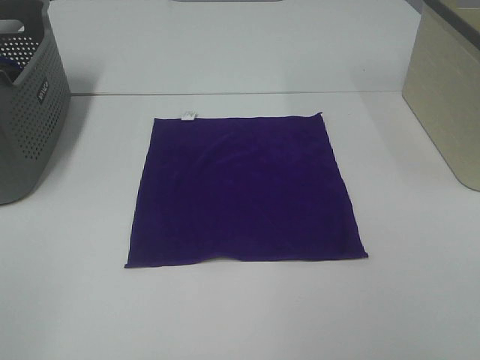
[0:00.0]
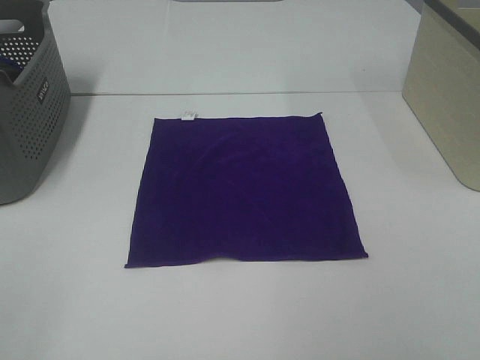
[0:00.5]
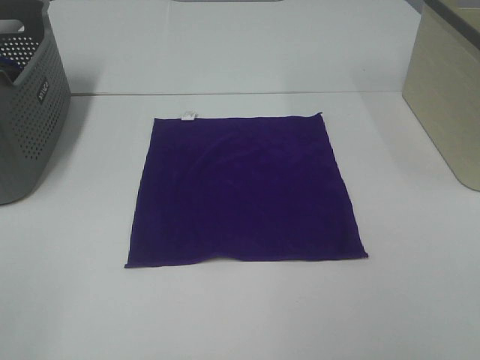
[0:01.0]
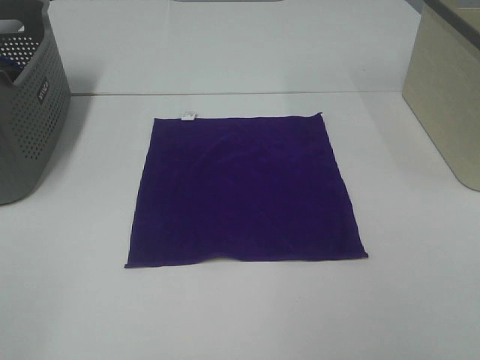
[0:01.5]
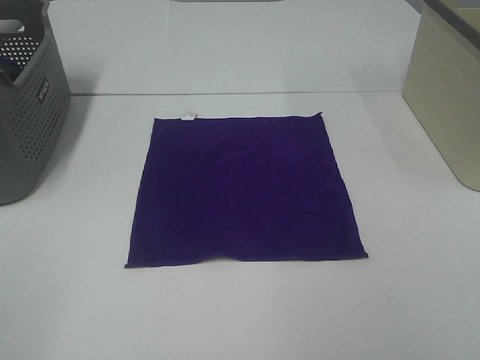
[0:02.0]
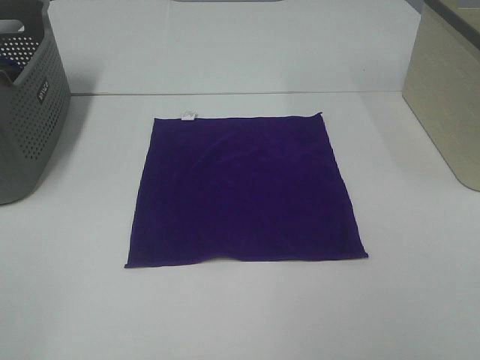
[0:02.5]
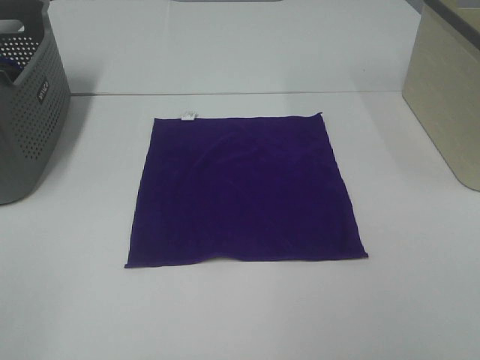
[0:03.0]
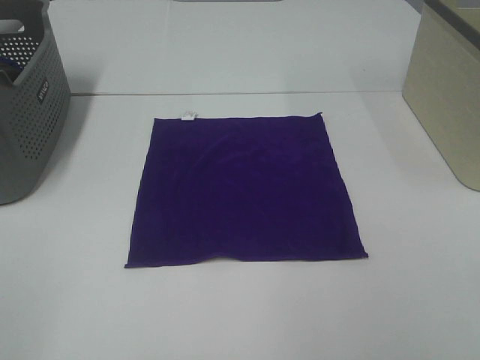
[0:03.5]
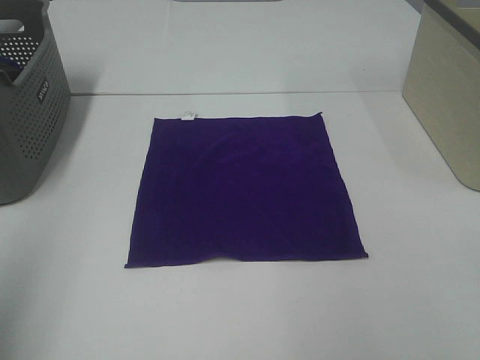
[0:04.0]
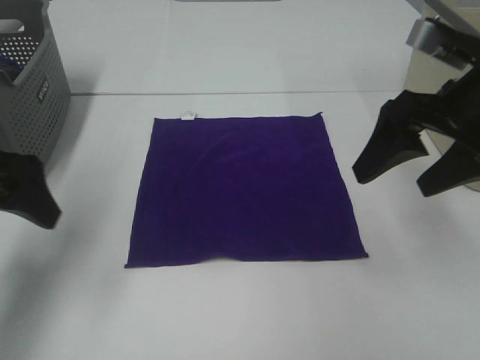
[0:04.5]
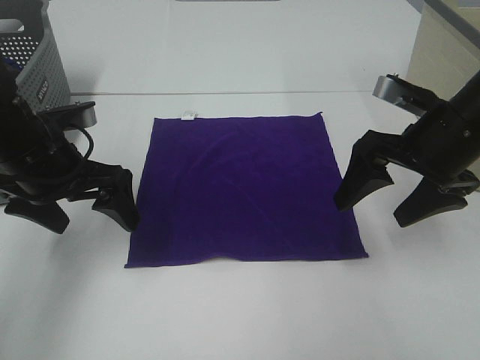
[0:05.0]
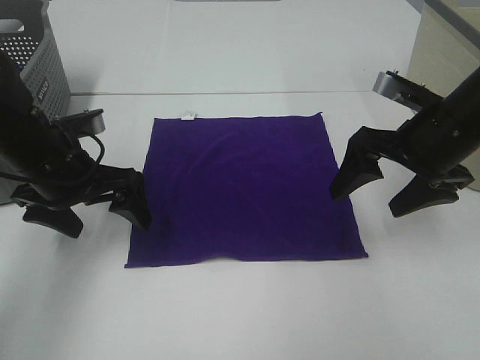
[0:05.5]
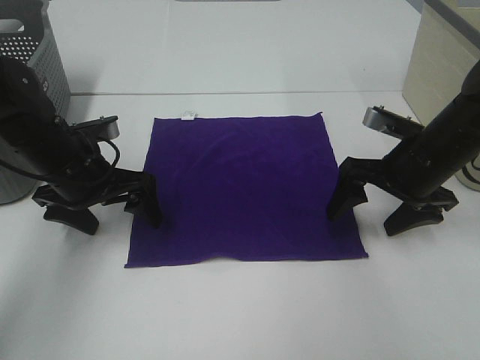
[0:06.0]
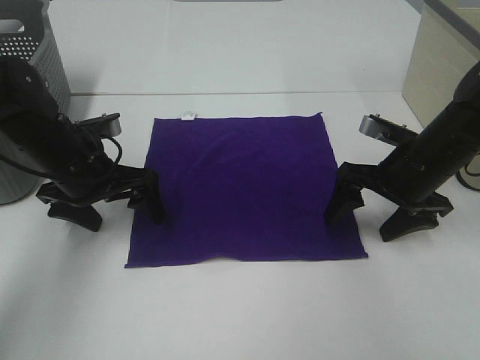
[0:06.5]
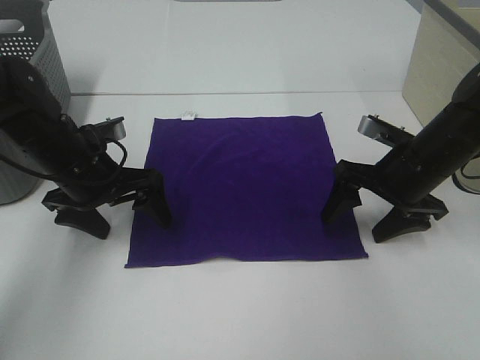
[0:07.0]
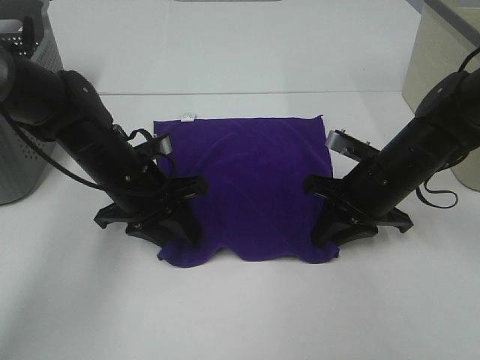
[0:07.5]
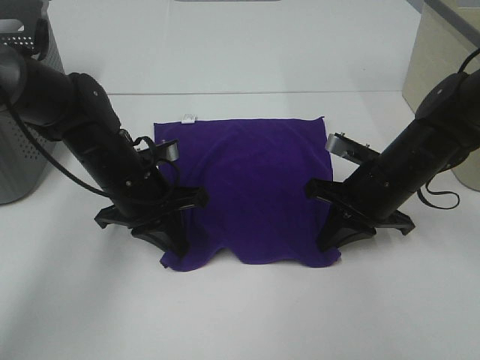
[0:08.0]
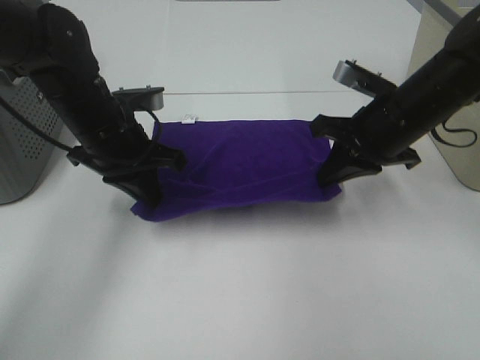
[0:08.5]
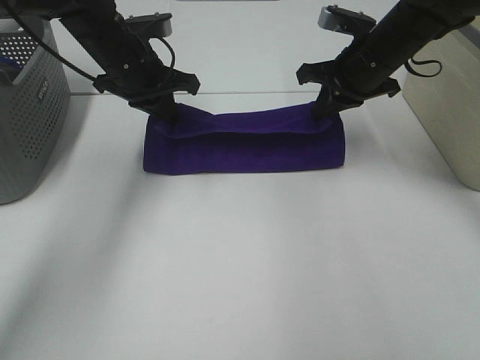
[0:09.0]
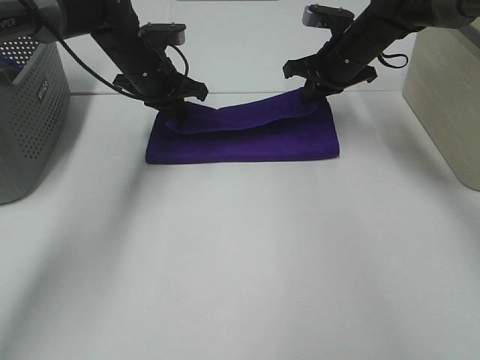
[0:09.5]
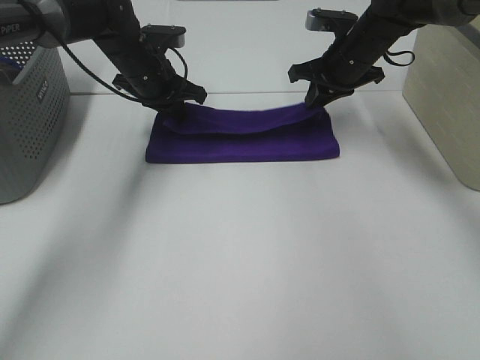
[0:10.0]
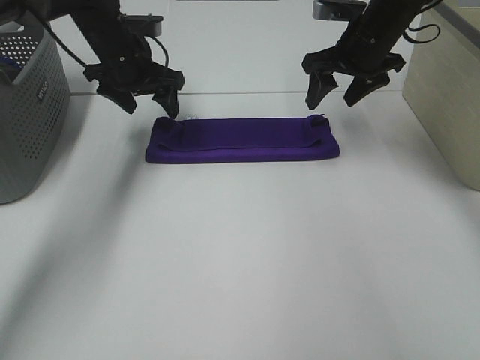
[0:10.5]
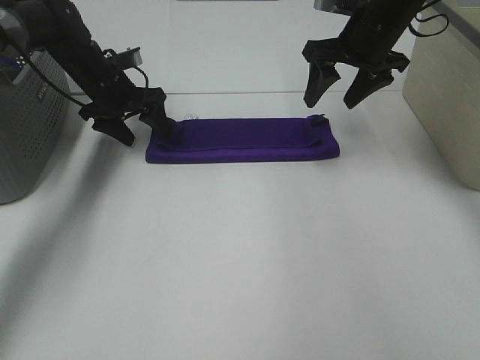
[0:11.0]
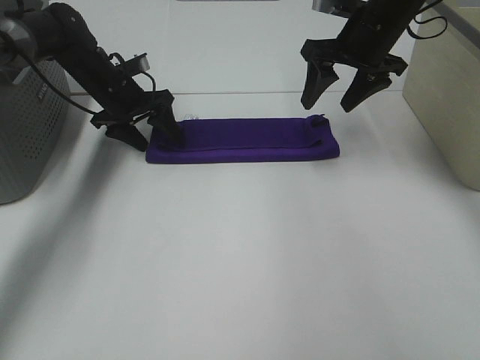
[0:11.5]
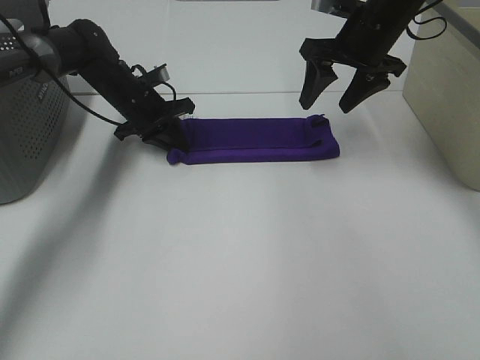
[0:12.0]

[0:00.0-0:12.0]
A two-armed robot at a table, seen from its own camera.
Task of the whole recording: Fold towels.
Step, 0:00.0 to 0:08.0: Left hand: grab the bottom left corner of purple towel.
Step, 0:00.0 to 0:08.0: Right hand: grab the bottom right corner of purple towel.
Step, 0:08.5 to 0:09.5: Left hand: fold the purple towel up.
Step, 0:08.5 to 0:09.5: Right hand: fold the purple towel up.
0:00.0 to 0:02.0: Both grippers stay about where they are.
0:02.0 to 0:04.0: The left gripper shifts some 10 cm forward.
0:04.0 to 0:06.0: The right gripper travels downward and forward by roughly 30 cm. The left gripper travels forward, downward and to the right by about 35 cm.
0:06.0 to 0:08.0: The right gripper closes. Meanwhile the left gripper shifts about 5 cm to the right, and closes up.
0:08.0 to 0:10.0: The right gripper is displaced forward and upward by about 20 cm. Meanwhile the left gripper shifts some 15 cm forward.
0:10.0 to 0:12.0: The right gripper goes about 5 cm upward, and opens its fingers. The left gripper moves downward, some 5 cm, and opens, then closes once more.

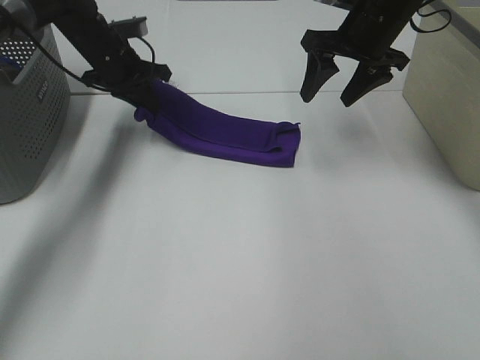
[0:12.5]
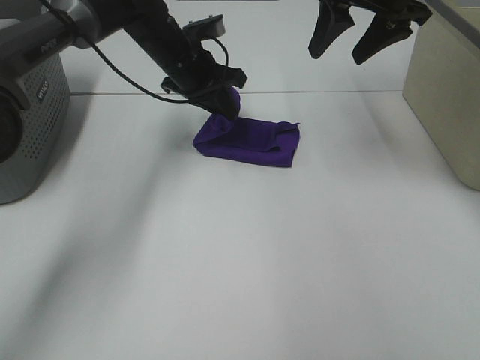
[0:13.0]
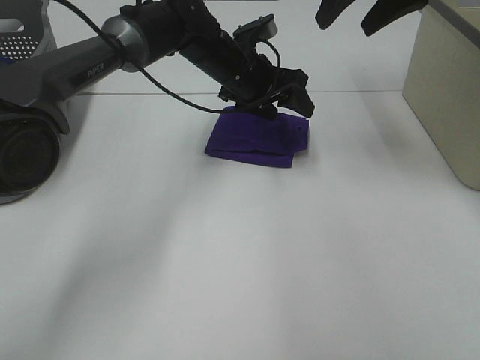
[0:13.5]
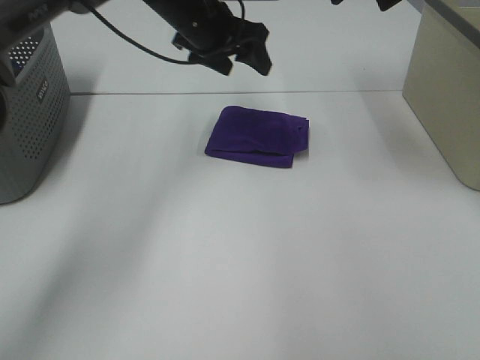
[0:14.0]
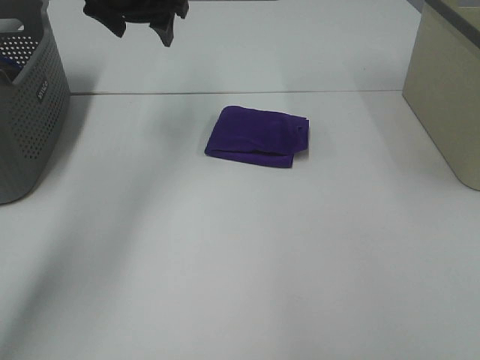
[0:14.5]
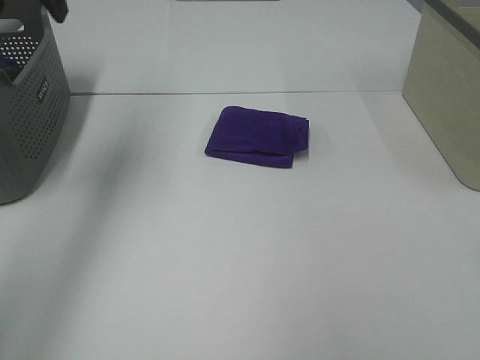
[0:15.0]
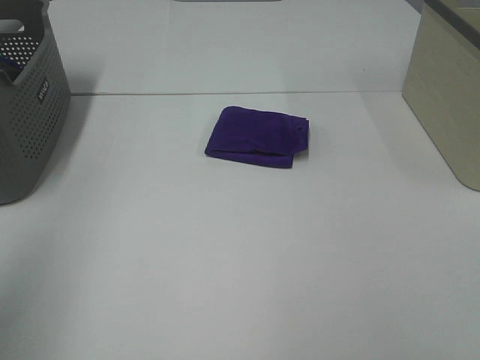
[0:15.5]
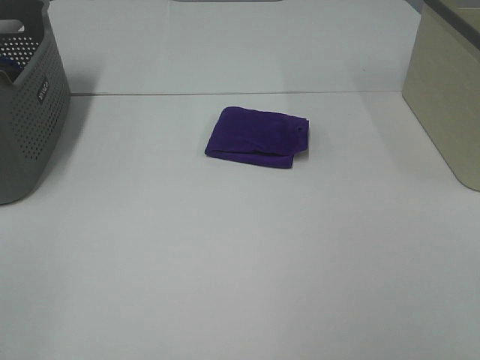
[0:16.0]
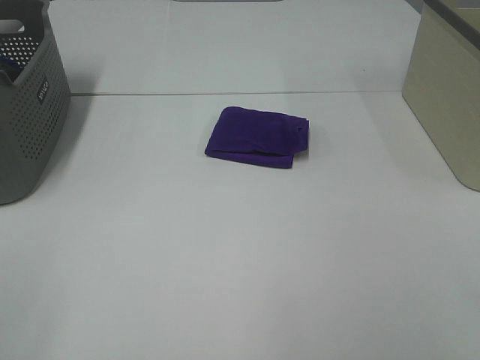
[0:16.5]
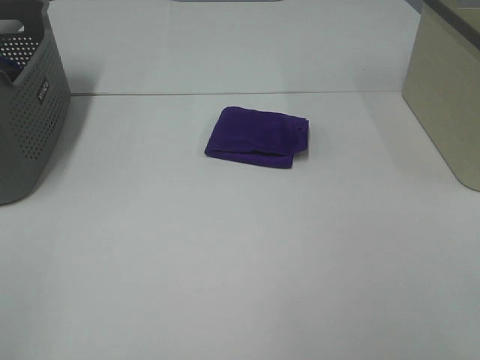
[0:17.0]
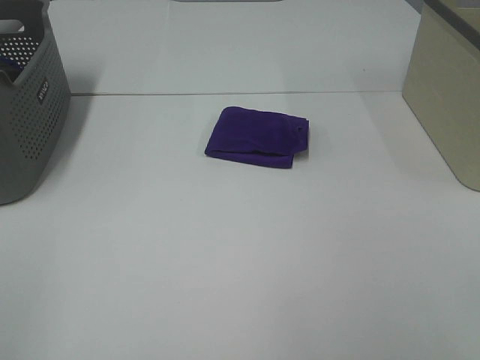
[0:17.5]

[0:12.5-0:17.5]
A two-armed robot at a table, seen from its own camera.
Task of the whole recording: Fold towels.
0:12.5 to 0:15.0: The left gripper moves upward and backward, about 25 cm, reaches about 20 cm to the right, then returns, and opens up; the right gripper moves backward and upward, approximately 40 cm.
0:15.0 to 0:17.5: The left gripper goes about 40 cm backward.
